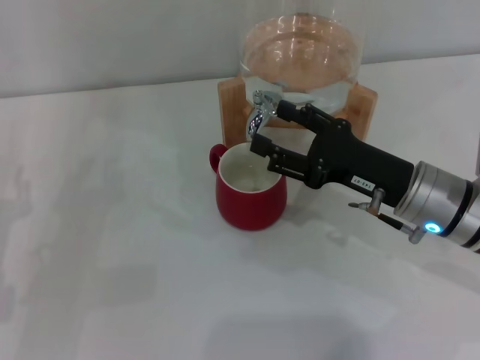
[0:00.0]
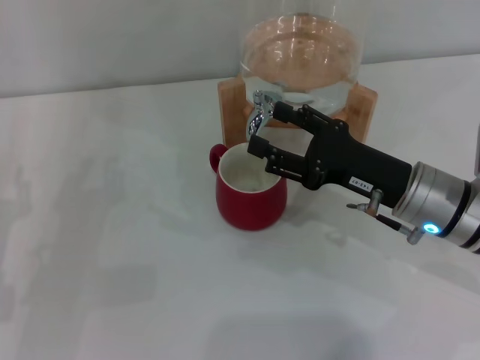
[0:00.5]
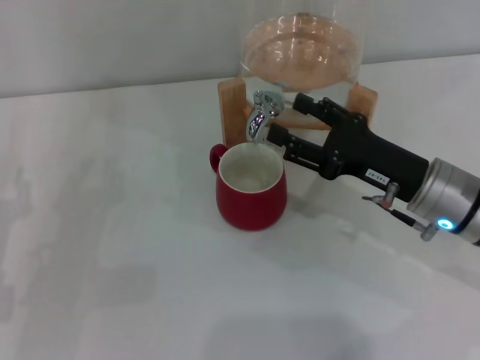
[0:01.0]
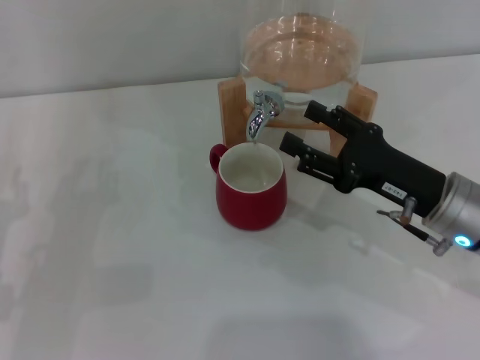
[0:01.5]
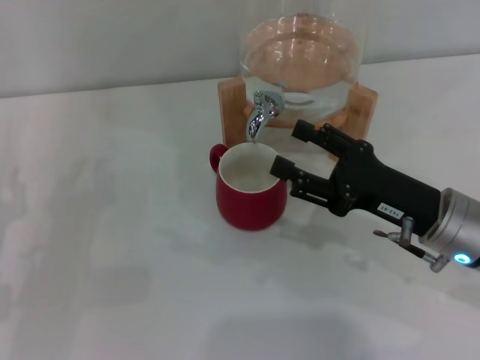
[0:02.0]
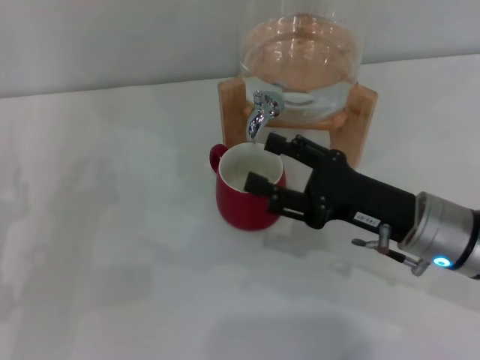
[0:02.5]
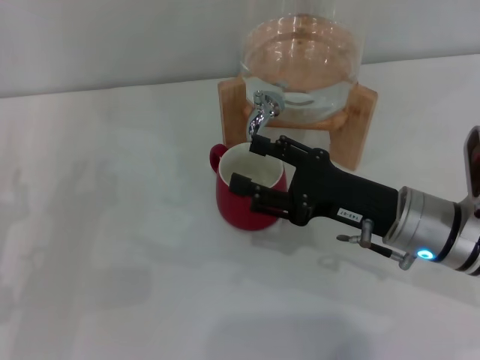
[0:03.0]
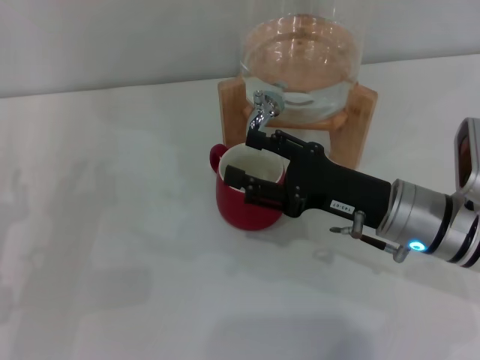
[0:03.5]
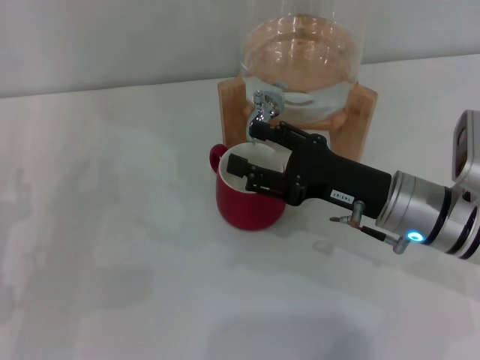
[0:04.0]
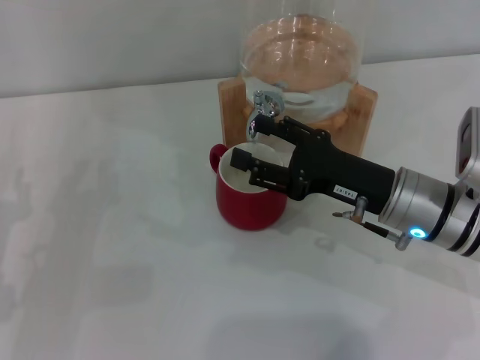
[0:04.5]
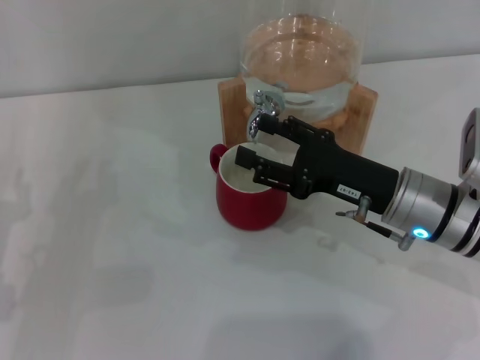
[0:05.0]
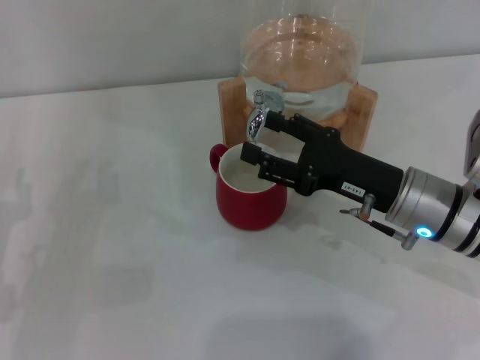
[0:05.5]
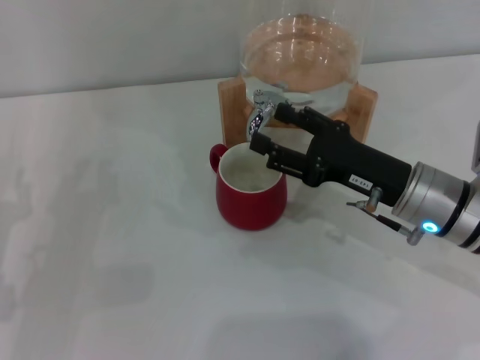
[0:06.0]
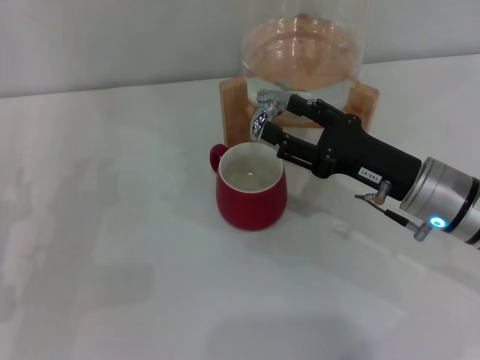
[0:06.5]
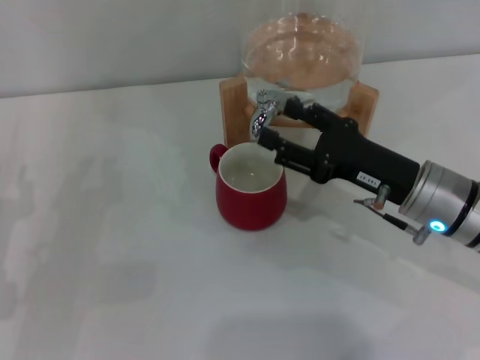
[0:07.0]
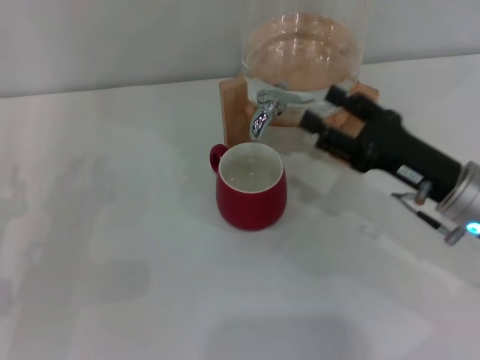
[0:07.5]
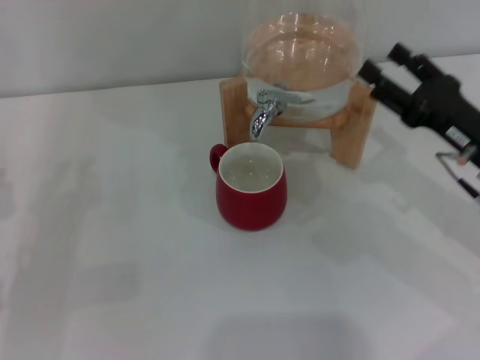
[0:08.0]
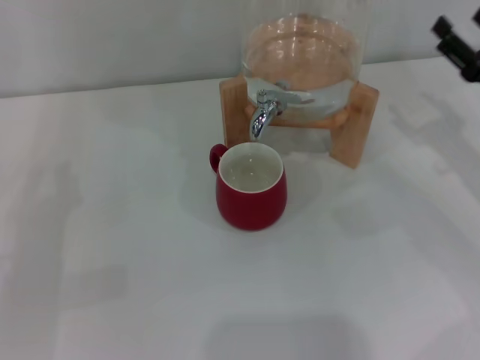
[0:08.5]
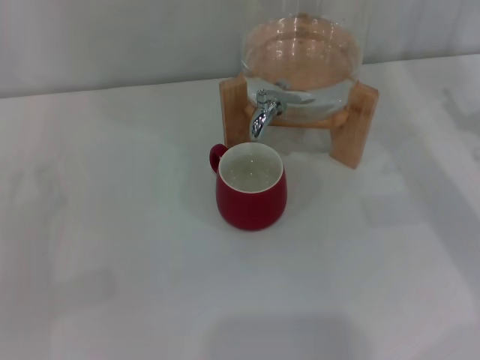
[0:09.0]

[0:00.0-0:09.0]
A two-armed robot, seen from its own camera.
Task of the whole recording: the left gripper pick up the red cup and place it horizontally under the faucet, the right gripper turn on the faucet to fill the cup, and then turn off the faucet.
Step, 0:00.0 to 0:02.5: Open the dispenser valve and fill the cup with water with the right gripper.
Step, 0:03.0 to 0:07.0: Close the dispenser valve with the right gripper.
0:00.0 to 0:07.0: The grippers make only small movements.
0:07.0 to 0:09.0: The right gripper is displaced to the right by roughly 15 cm.

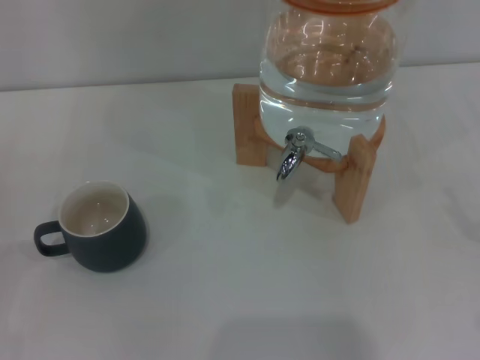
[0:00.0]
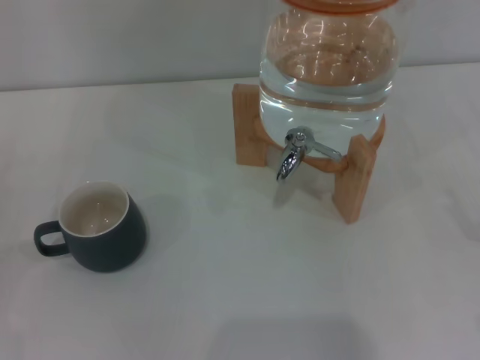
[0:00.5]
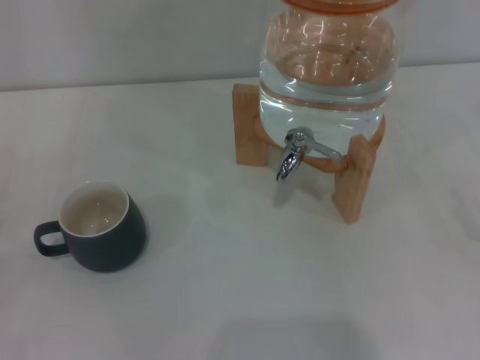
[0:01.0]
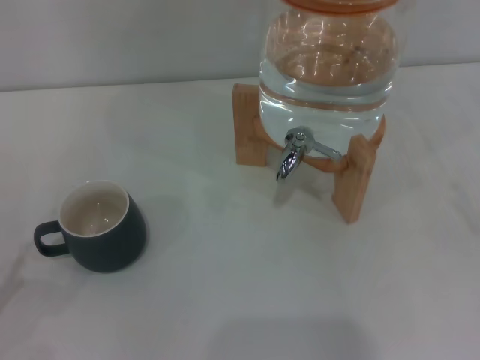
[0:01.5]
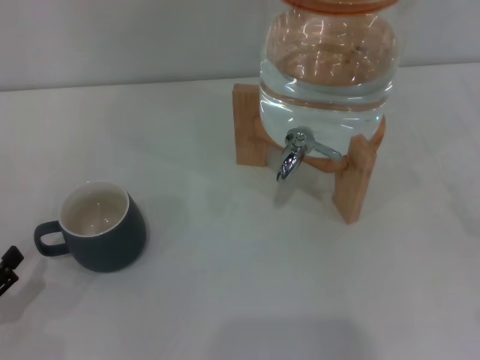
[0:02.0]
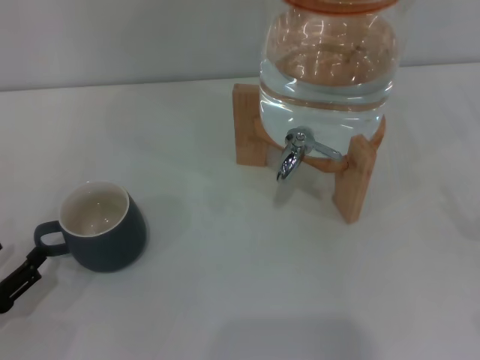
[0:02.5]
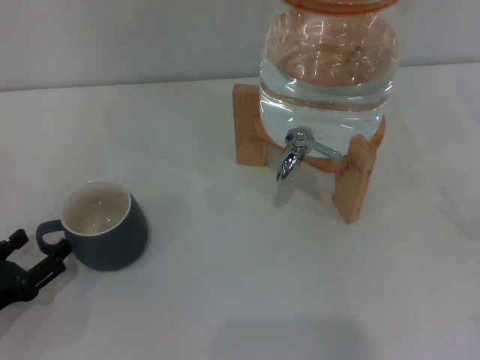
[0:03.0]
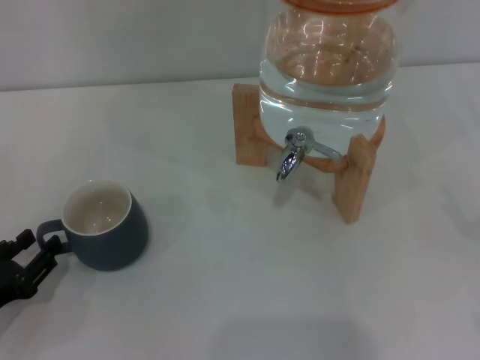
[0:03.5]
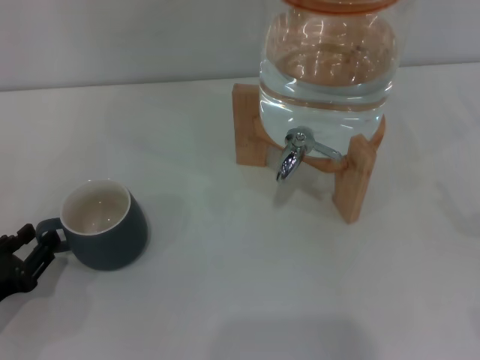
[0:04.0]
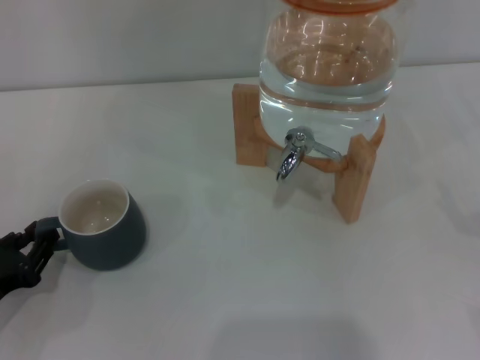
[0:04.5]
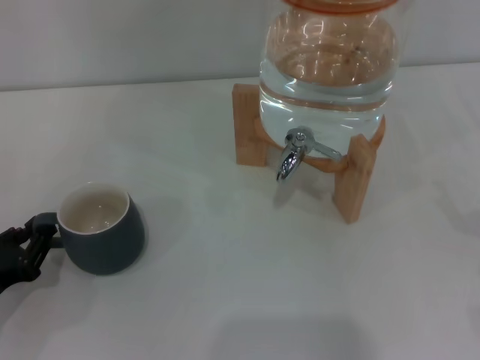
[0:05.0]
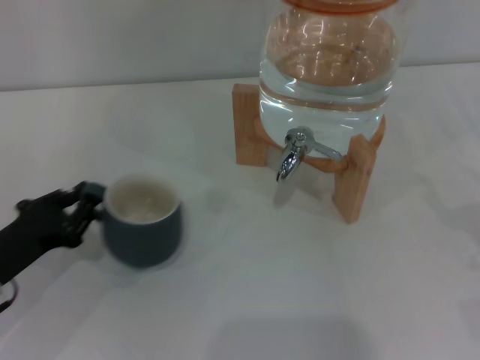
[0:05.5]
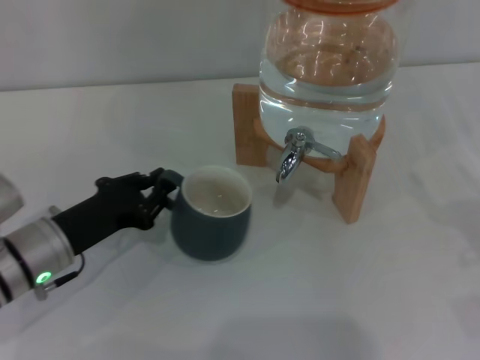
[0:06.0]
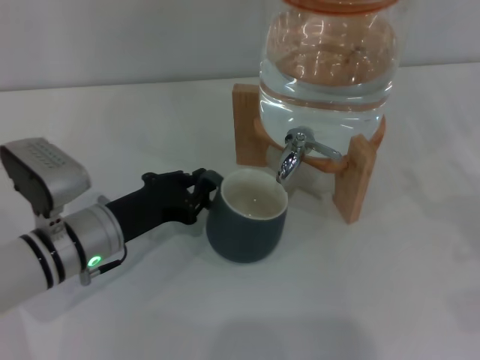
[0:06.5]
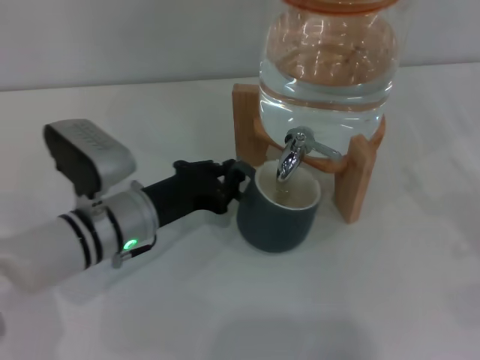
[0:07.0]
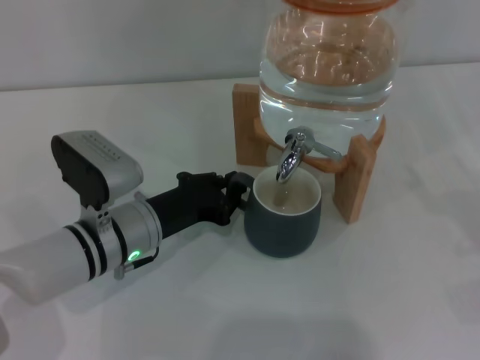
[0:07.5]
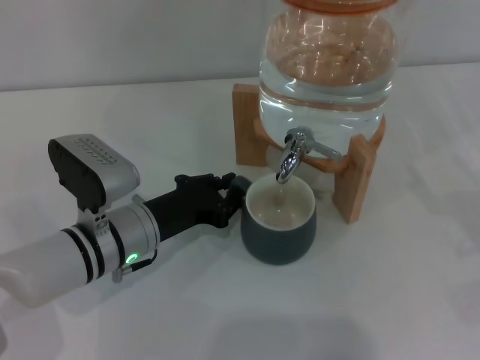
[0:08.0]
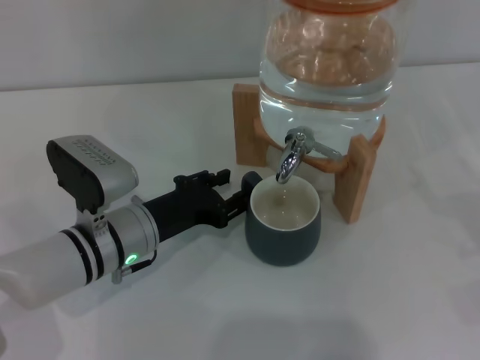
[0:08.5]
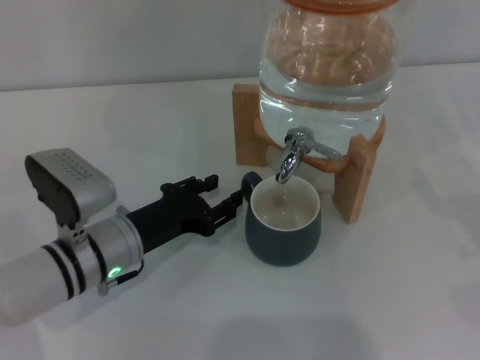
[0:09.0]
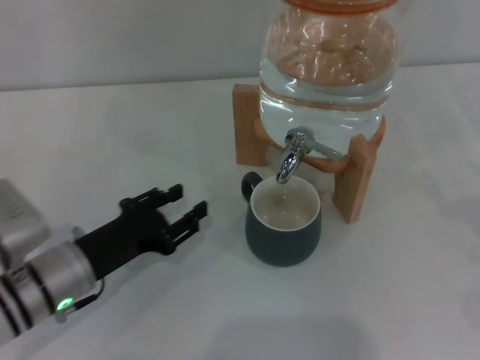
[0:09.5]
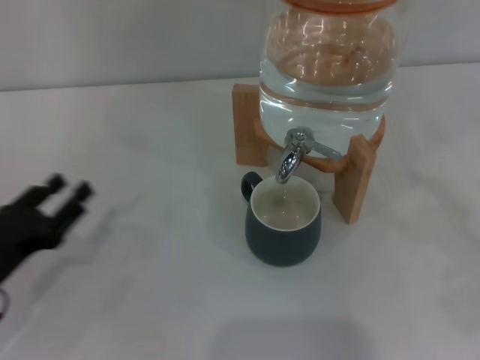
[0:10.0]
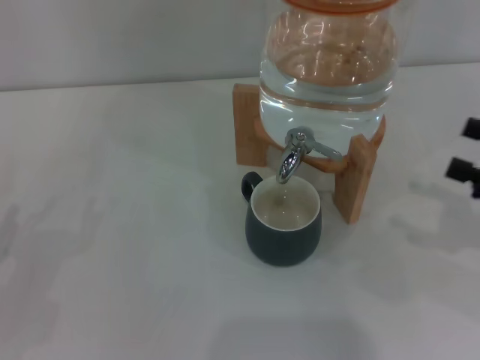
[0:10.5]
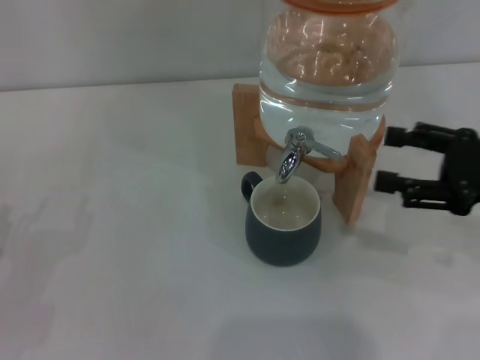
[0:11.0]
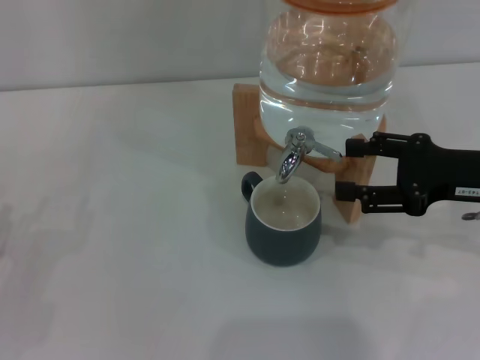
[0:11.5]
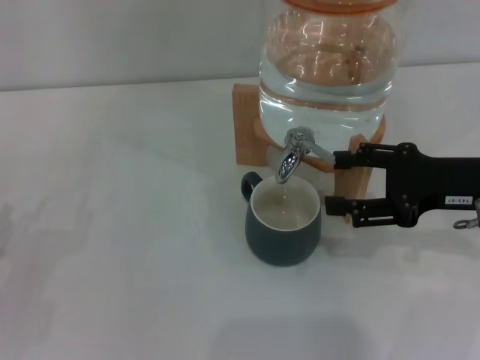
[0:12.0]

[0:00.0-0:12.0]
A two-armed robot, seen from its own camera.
Task of the whole recording: the left gripper pick up the black cup and place it horizontally under the faucet, the right gripper turn on the faucet to fill the cup, and then turn off the faucet.
Step, 0:00.0 to 0:09.0: Move the cup beneath the water dispenser nozzle with the left gripper.
0:00.0 to 0:02.0: The left gripper shifts by about 5 cm.
0:02.0 to 0:04.0: The left gripper ends up roughly 5 cm from where it was, and closes up.
0:04.0 to 0:06.0: The left gripper travels to the right and forward by about 15 cm, and closes.
0:06.0 to 0:08.0: The left gripper is displaced to the right by roughly 10 cm.
0:08.0 to 0:10.0: The left gripper shifts roughly 15 cm to the left and backward, and opens.
0:10.0 to 0:12.0: The right gripper travels to the left and forward by some 15 cm. The left gripper is displaced to the left by about 5 cm.

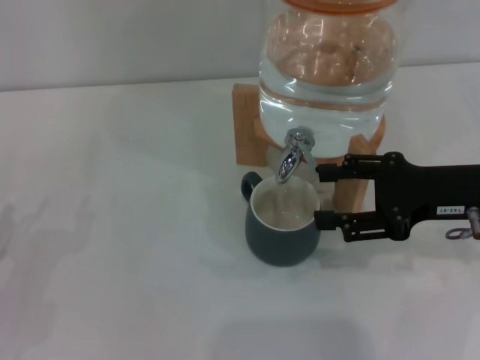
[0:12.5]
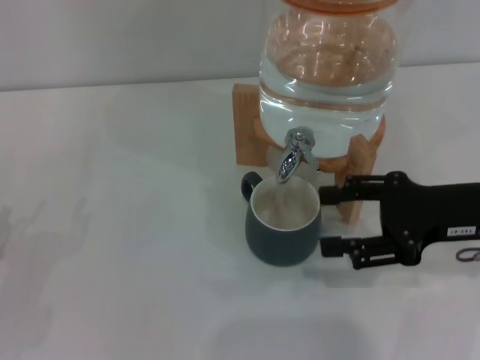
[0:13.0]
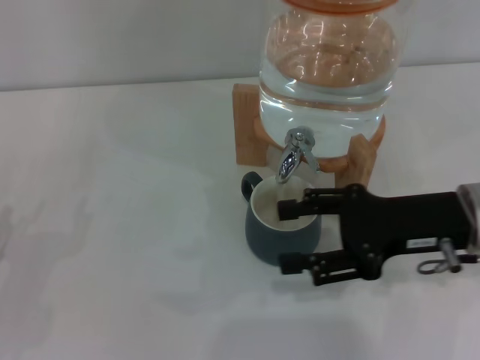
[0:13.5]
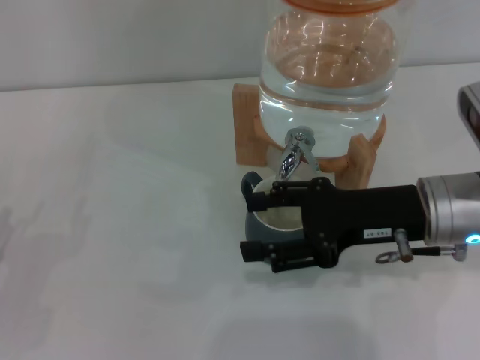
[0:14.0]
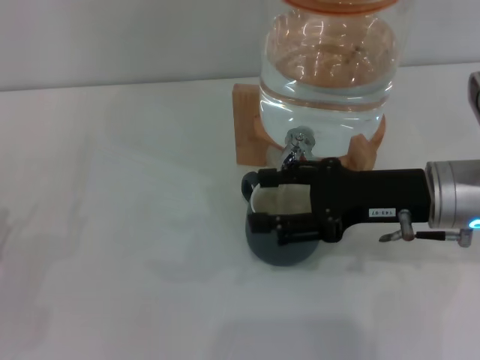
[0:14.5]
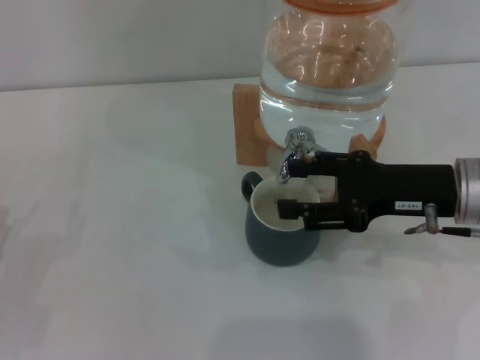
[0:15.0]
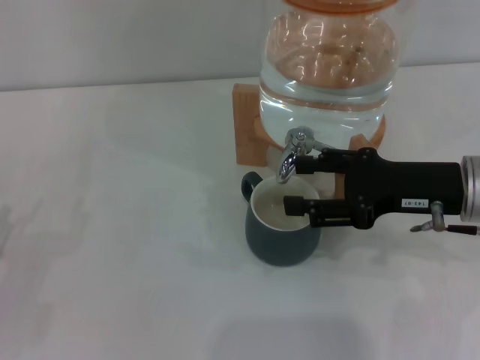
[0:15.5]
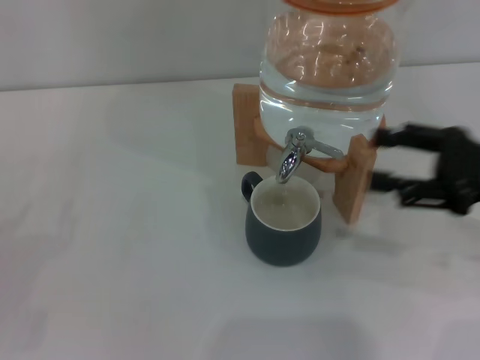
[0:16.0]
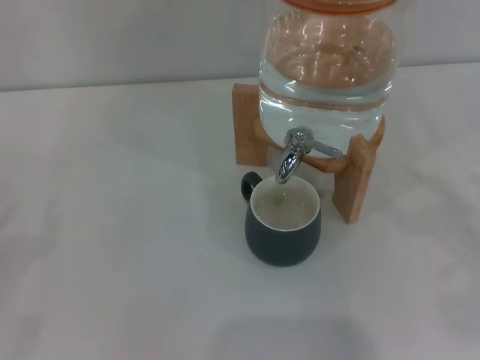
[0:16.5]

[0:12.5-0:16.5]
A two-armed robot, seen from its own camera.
Task of the whole recording: the left gripper pick up the black cup and place it horizontally under the faucet, the right gripper turn on the faucet to fill the cup, and then turn off the faucet.
Step, 0:14.5 to 0:15.5: Close the dispenser valve with the right gripper.
0:12.5 to 0:14.5: The right gripper travels to the left by roughly 5 cm.
0:14.5 to 0:16.5: The right gripper shifts some 20 cm to the right and backward.
